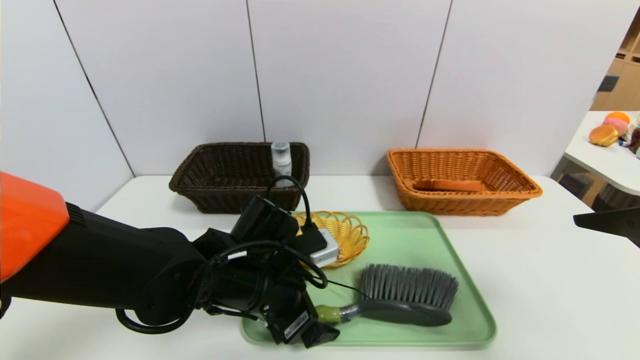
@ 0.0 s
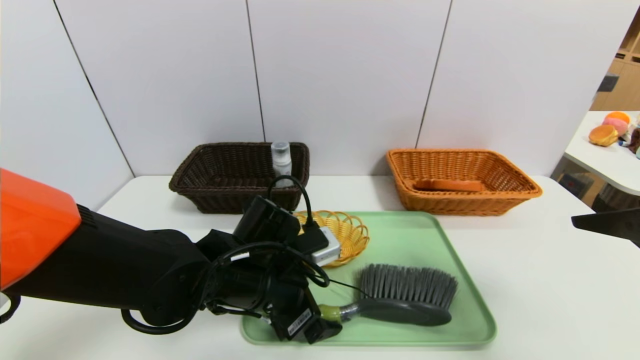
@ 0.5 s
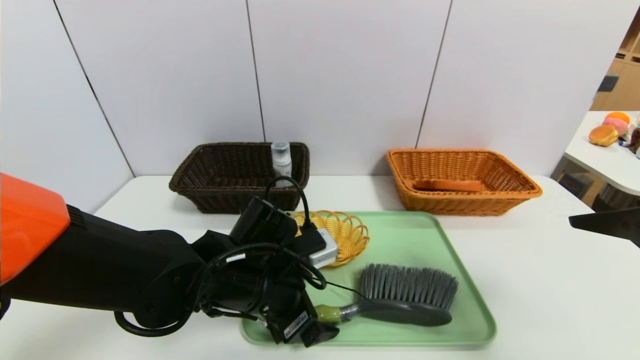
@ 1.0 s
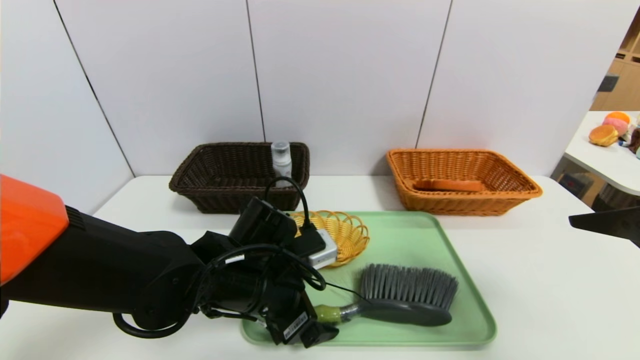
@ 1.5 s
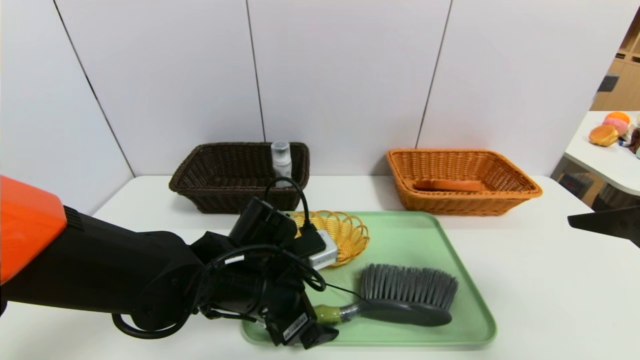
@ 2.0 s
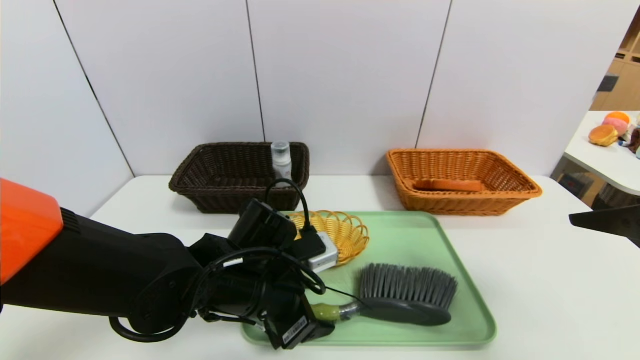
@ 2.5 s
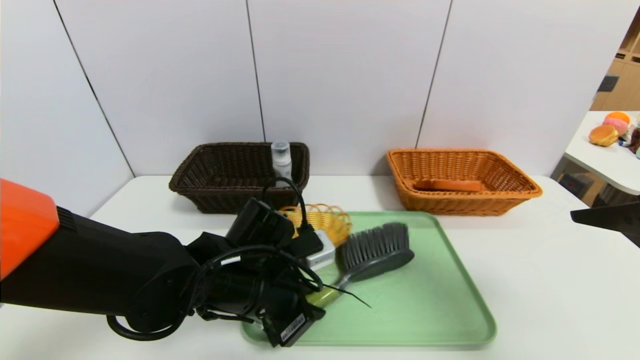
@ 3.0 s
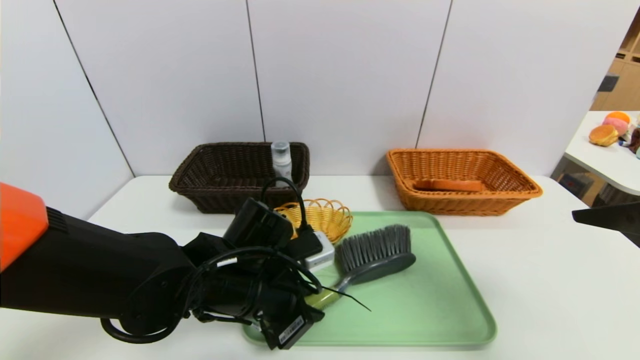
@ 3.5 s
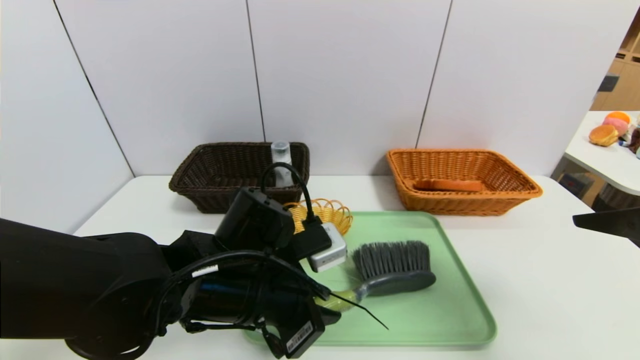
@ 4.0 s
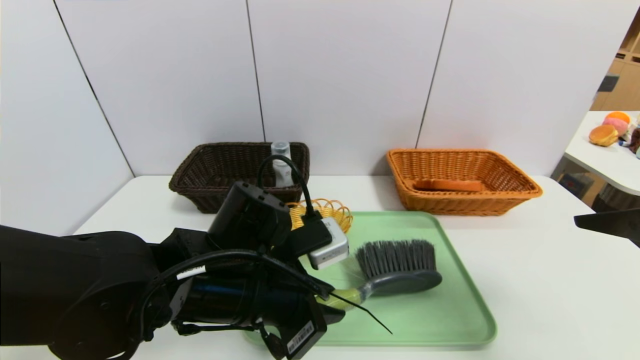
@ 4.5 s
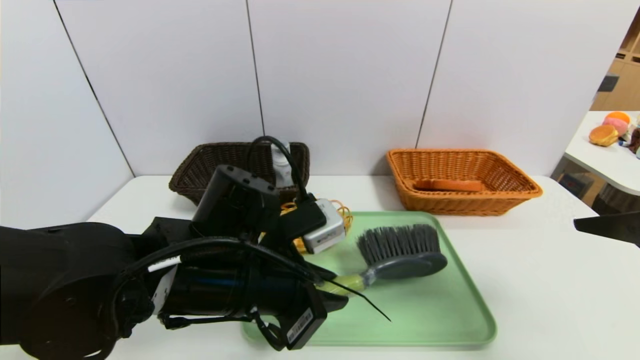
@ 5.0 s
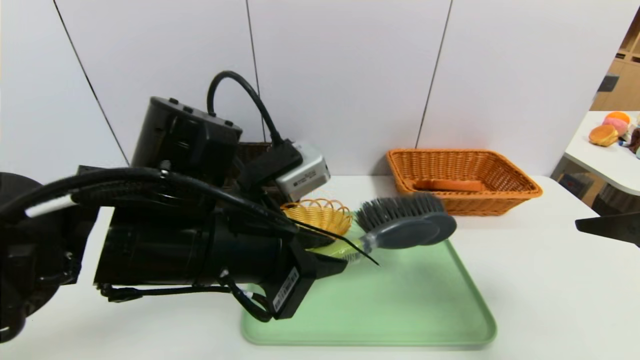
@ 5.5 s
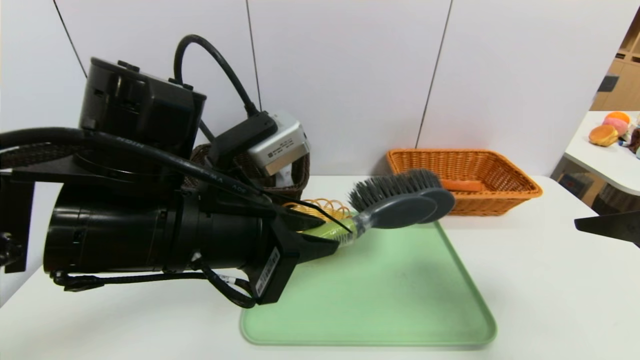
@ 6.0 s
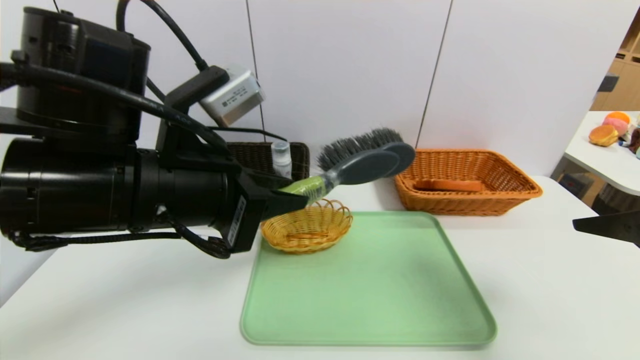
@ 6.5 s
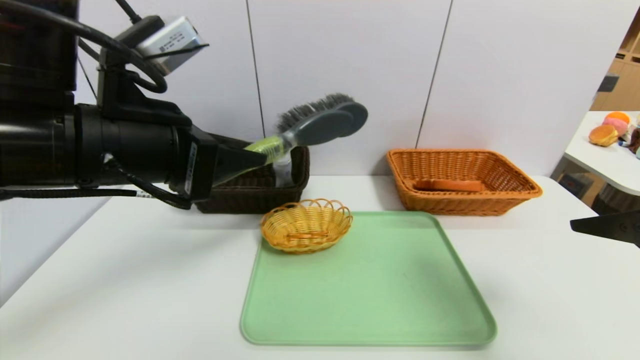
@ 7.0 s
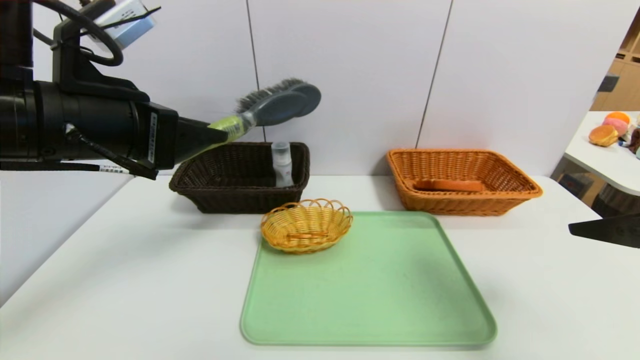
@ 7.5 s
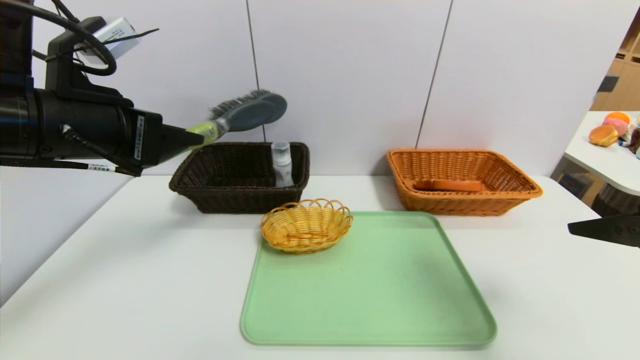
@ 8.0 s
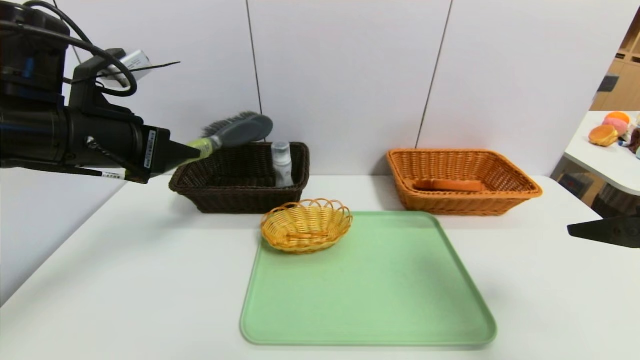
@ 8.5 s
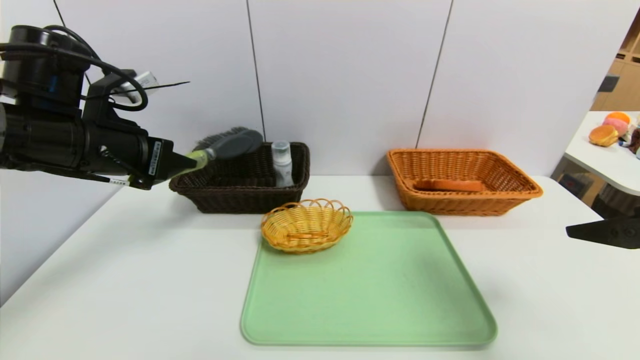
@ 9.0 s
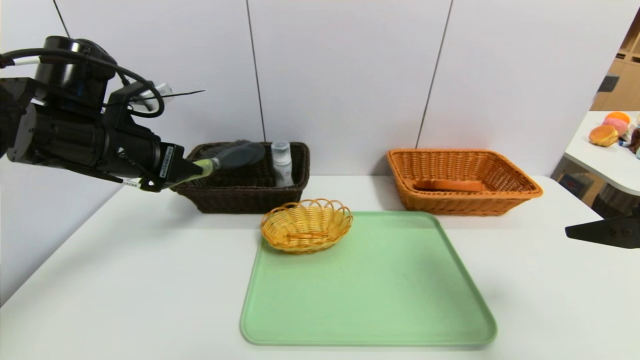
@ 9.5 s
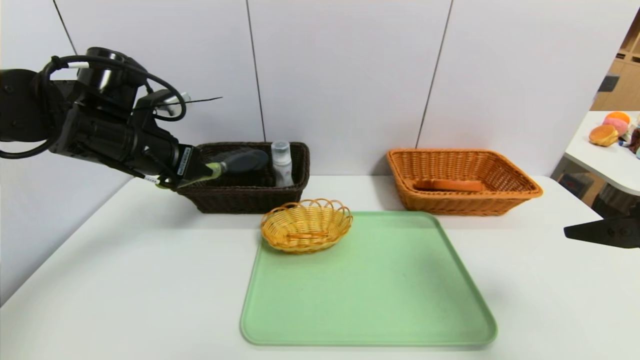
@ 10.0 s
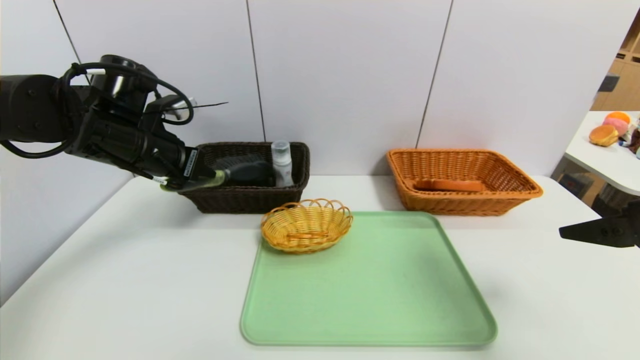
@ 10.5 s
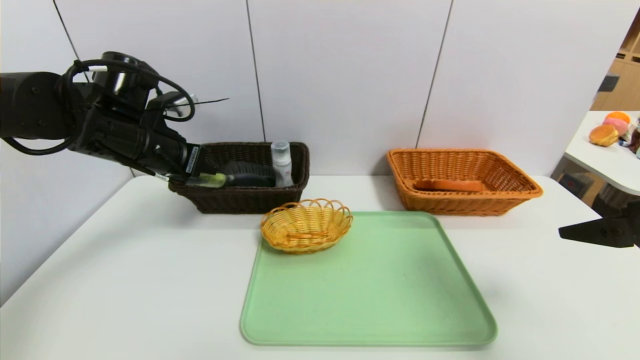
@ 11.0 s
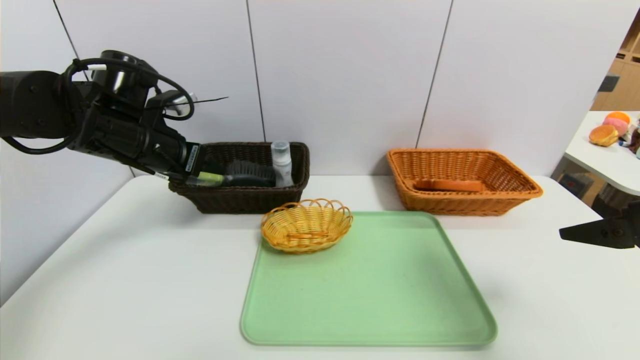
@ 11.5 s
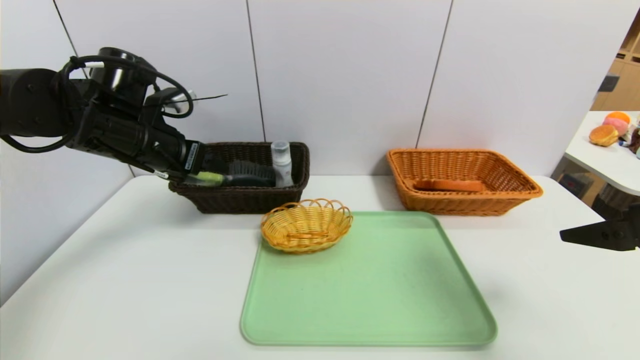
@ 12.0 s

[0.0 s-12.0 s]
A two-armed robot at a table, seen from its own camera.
Task of the whole recording: place the food in the right basket with the right gripper, and place the non food items in the left basket with the left gripper.
Step, 0.0 to 11.0 s: Grasp the brush and put it in the left basket.
0.0 to 2.0 s: Both grippers stay put.
2.0 to 4.0 s: The left gripper closes.
4.0 to 6.0 s: The left gripper is displaced upward by approximately 10 cm.
6.0 to 8.0 s: The left gripper moves to the left and upward, approximately 15 cm.
8.0 to 10.0 s: The left gripper is displaced forward and downward by roughly 10 cm.
10.0 to 12.0 s: The left gripper opens up.

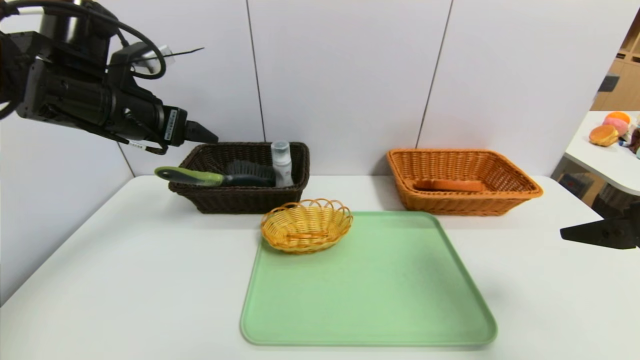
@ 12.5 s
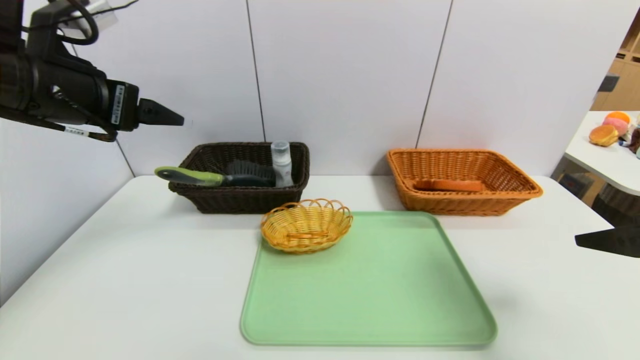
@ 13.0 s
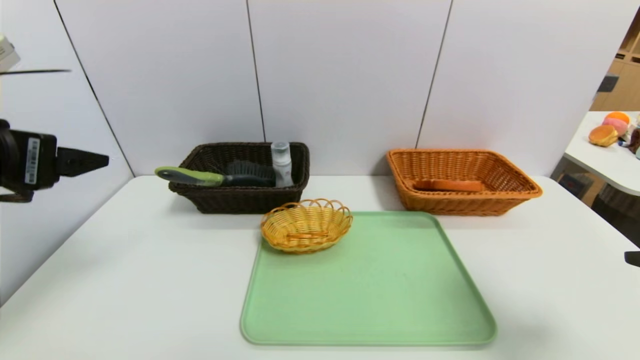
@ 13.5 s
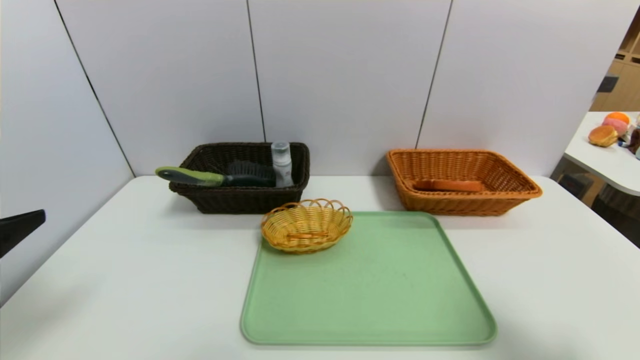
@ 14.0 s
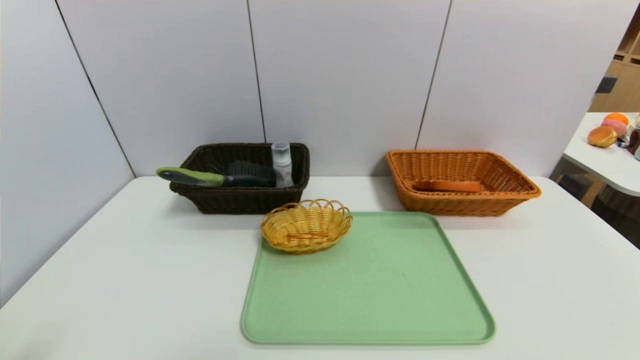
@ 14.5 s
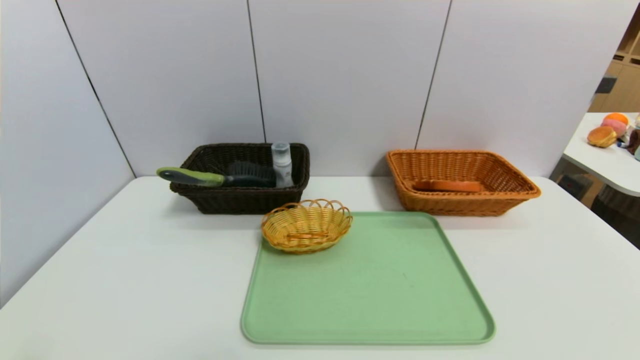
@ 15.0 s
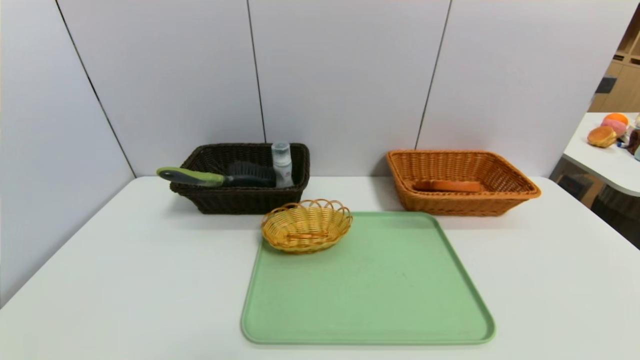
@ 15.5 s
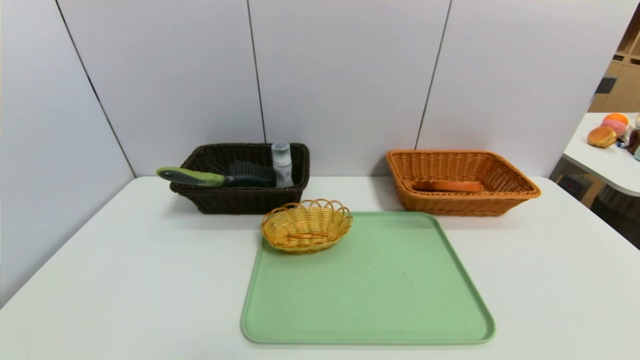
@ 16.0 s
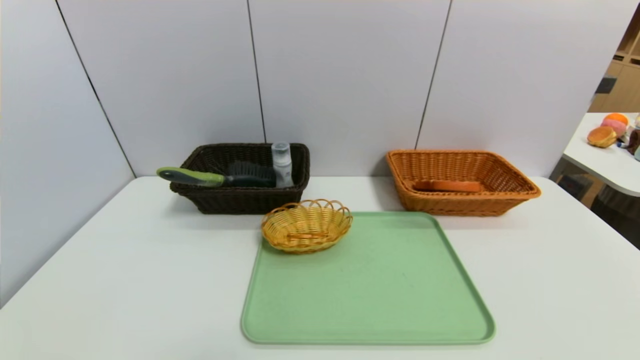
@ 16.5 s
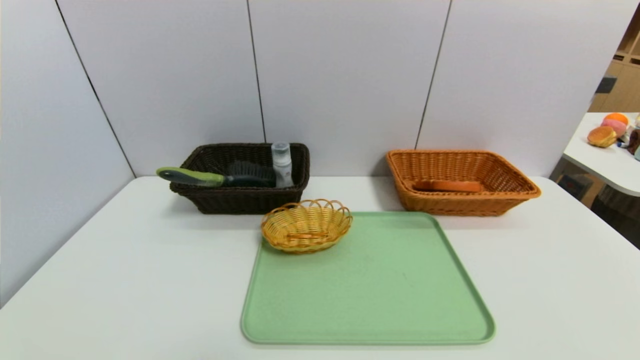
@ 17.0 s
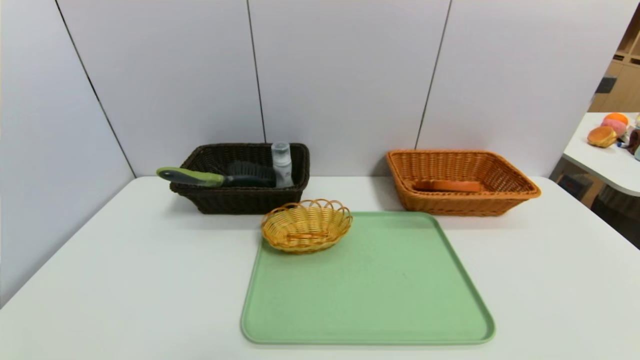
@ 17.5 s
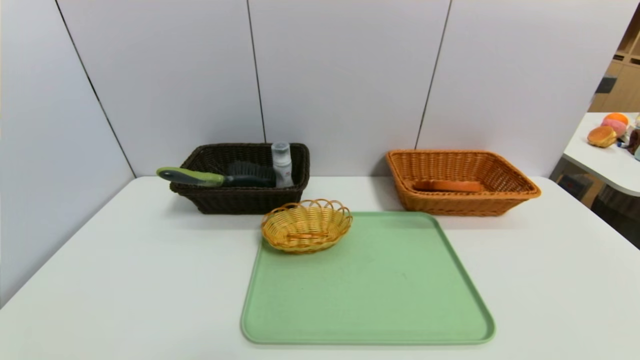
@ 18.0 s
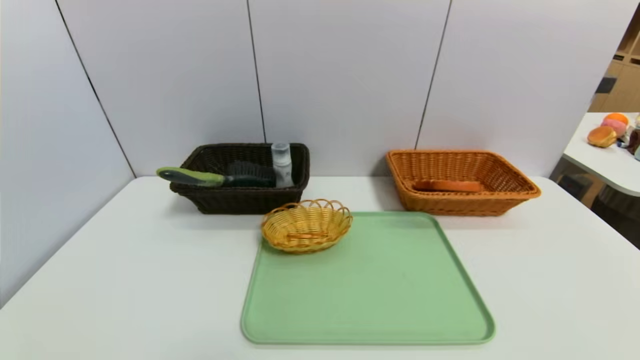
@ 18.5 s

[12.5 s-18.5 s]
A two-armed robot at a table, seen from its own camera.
Task of the whole recording: place the food in the right basket with the right gripper, and place the non food items in the left basket with the left gripper.
12.5 to 14.5 s: The right gripper shifts approximately 15 cm backward, while the left gripper shifts roughly 30 cm backward.
